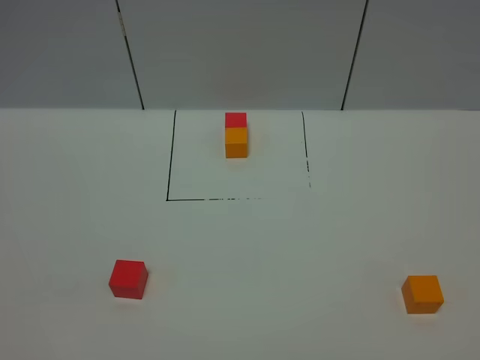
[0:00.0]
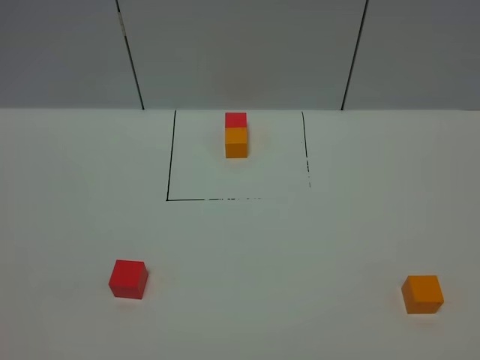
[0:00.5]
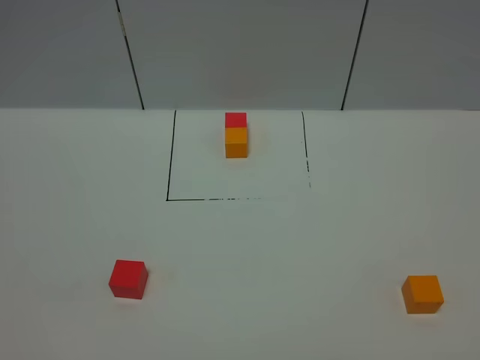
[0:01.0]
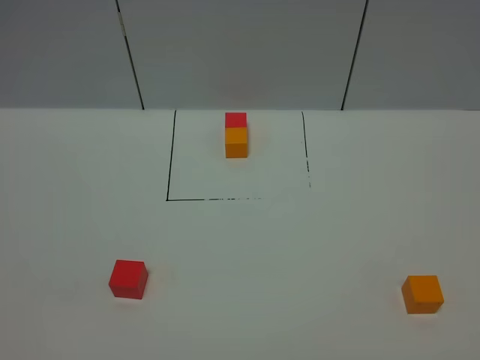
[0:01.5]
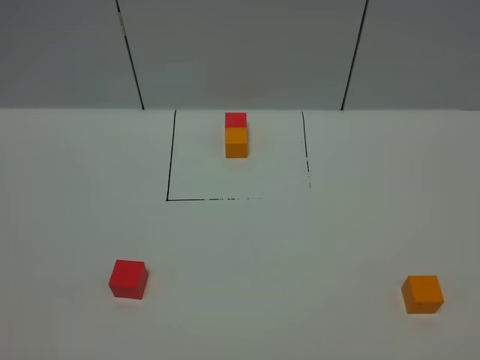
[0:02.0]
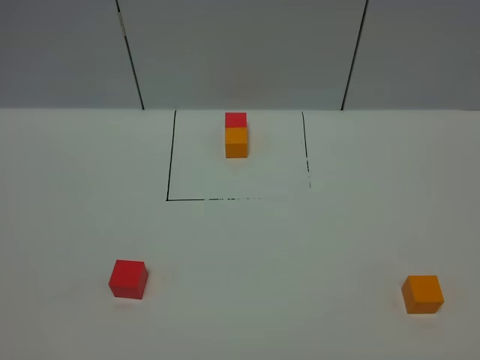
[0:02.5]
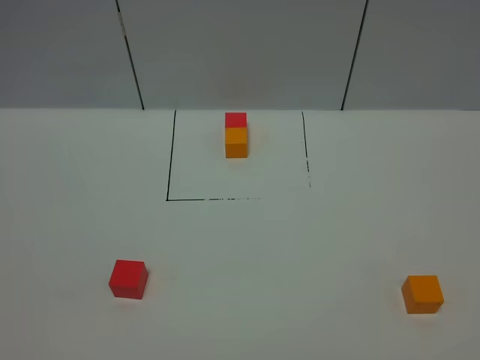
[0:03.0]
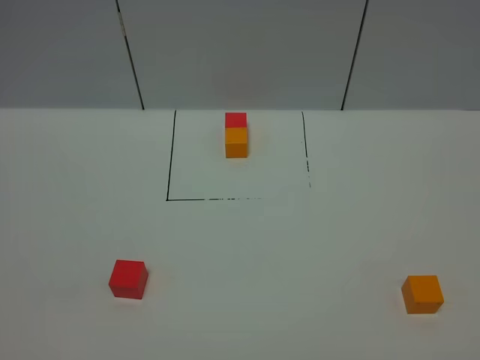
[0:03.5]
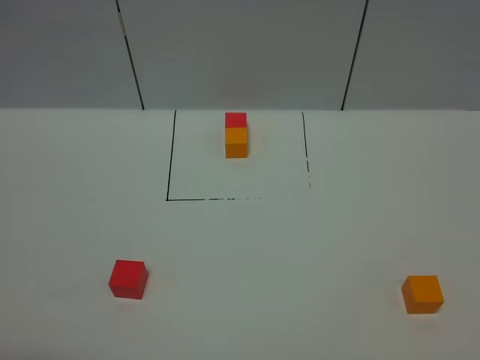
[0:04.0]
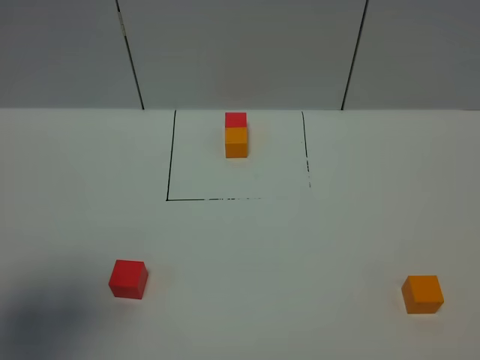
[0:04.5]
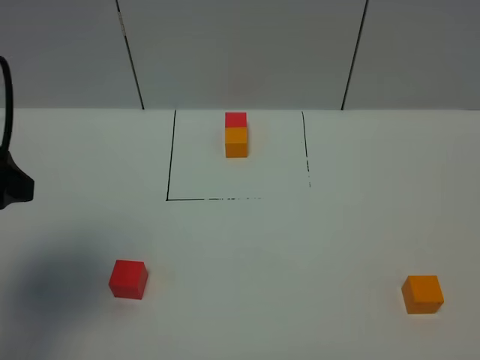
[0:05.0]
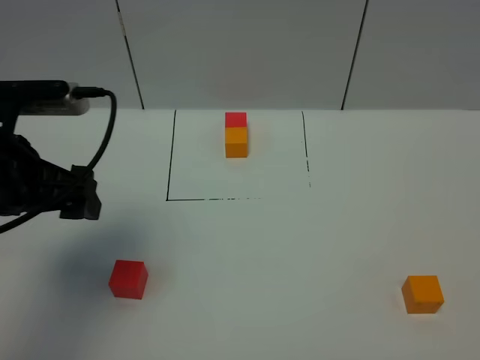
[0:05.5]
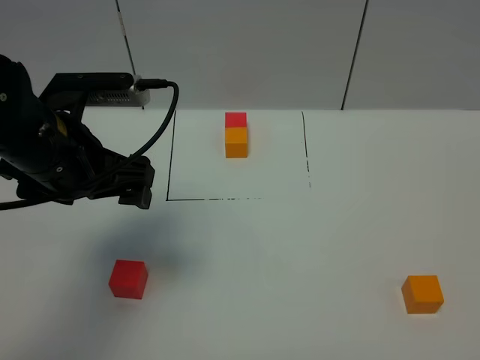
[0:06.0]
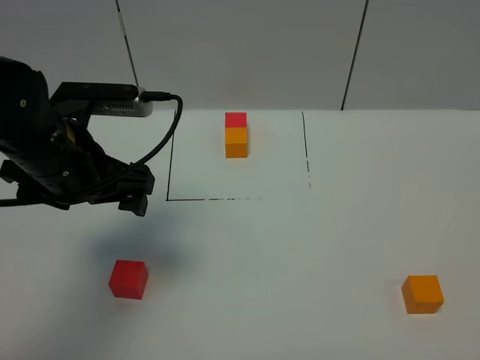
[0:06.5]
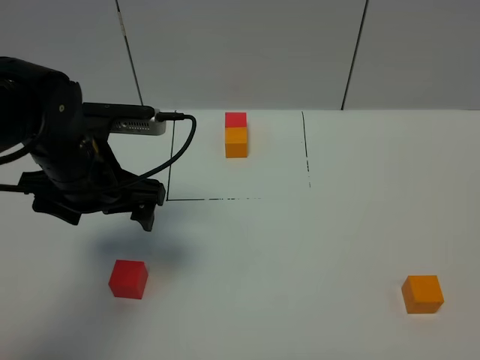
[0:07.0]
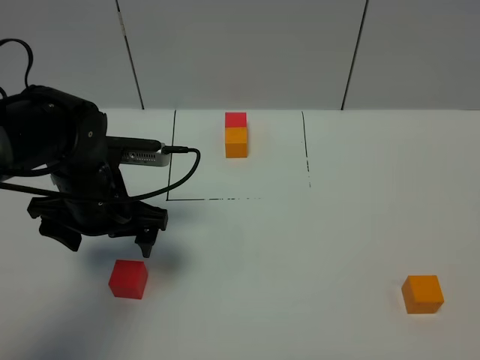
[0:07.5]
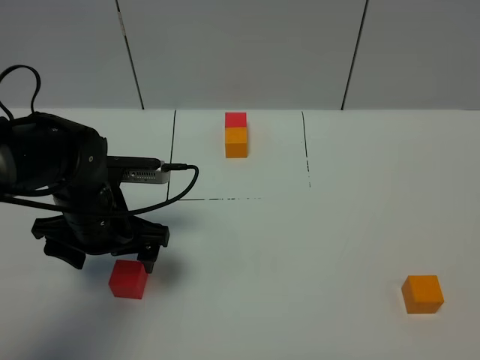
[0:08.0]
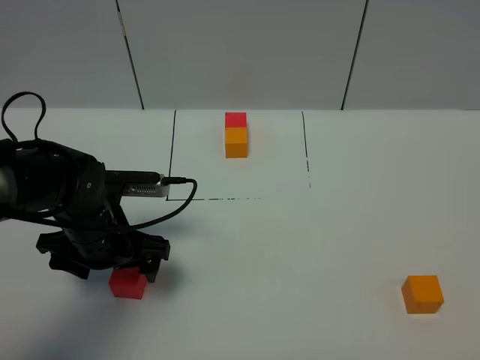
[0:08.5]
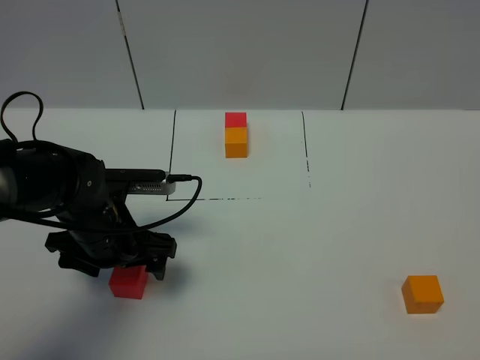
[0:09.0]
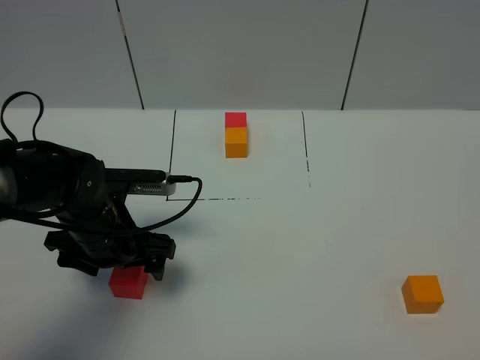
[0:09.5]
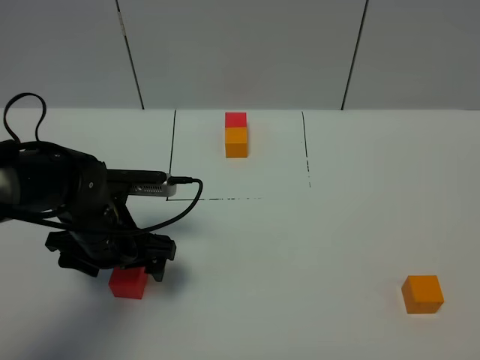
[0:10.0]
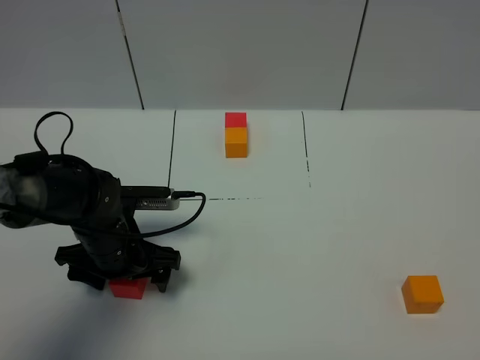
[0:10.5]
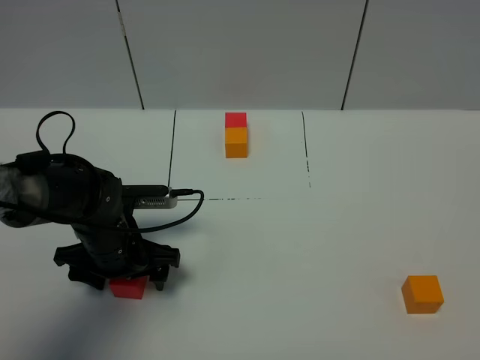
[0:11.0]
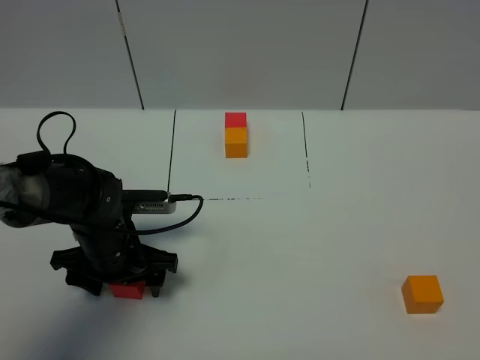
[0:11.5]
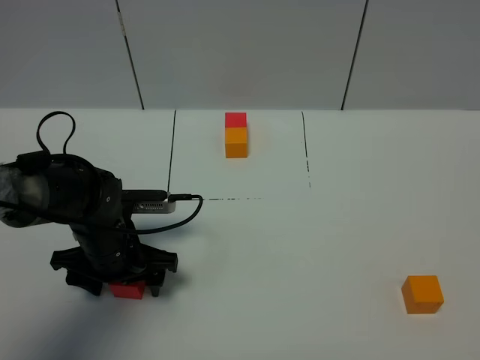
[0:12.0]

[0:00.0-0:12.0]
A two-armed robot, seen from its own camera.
Task of the whole recording: According to the building block template in front, assemble the scattered blocks together.
0:00.0 to 0:02.0: Both grippers stay about where they are.
0:04.0 to 0:06.0: The left gripper heads forward and to the right, covering about 30 cm.
0:06.0 to 0:08.0: The left gripper shifts about 10 cm downward.
0:08.0 to 0:10.0: There are only small adjustments of the grippers.
0:10.0 to 0:12.0: The grippers move only a little.

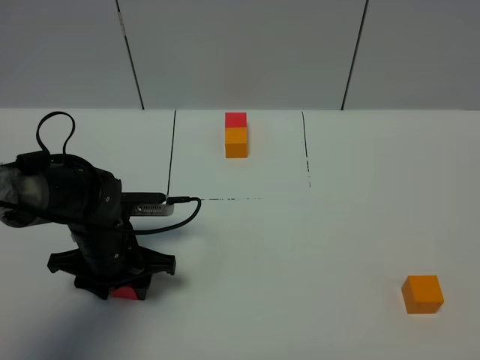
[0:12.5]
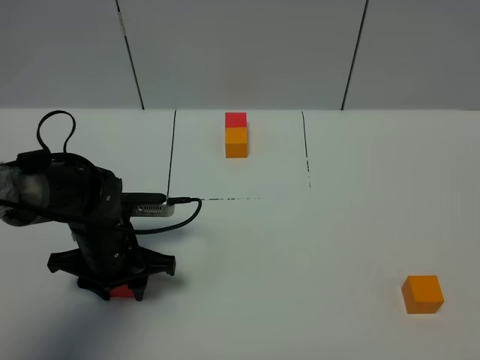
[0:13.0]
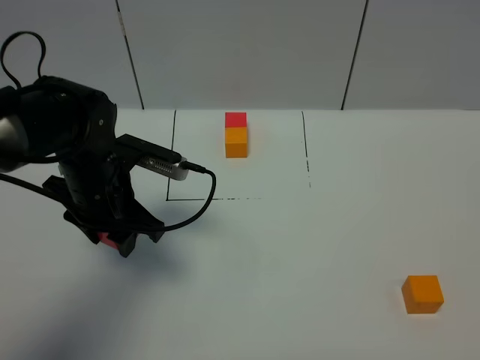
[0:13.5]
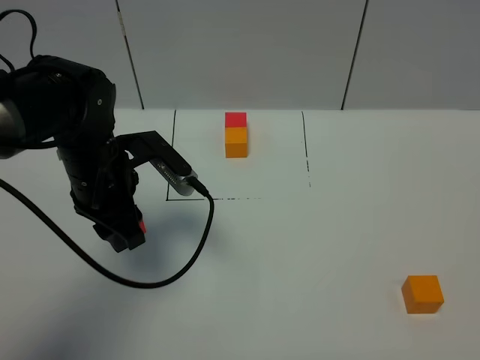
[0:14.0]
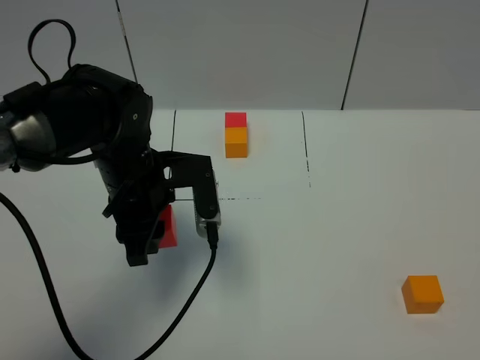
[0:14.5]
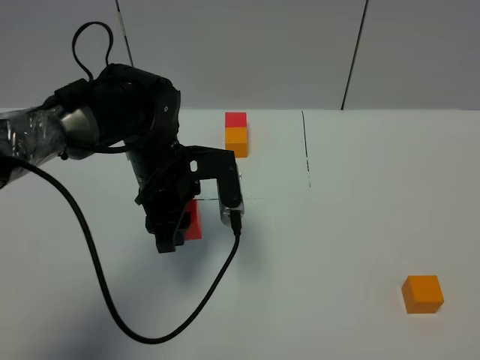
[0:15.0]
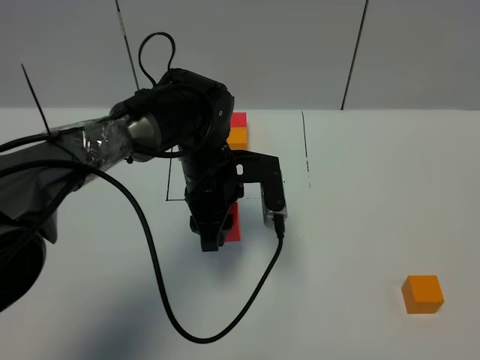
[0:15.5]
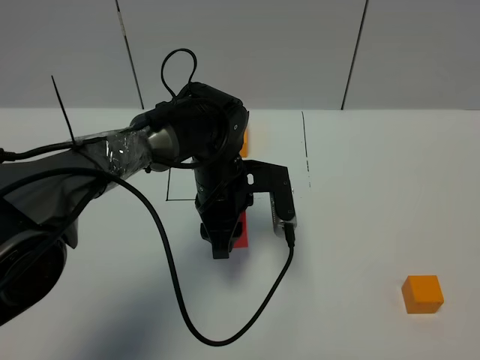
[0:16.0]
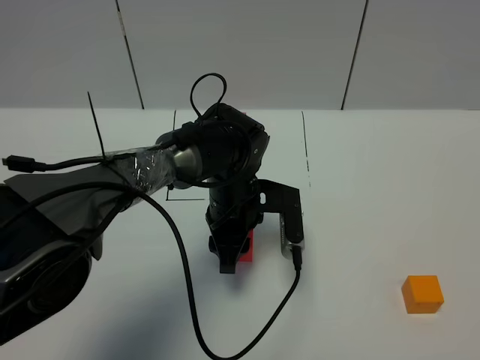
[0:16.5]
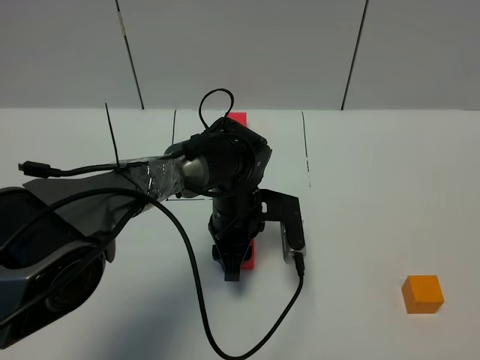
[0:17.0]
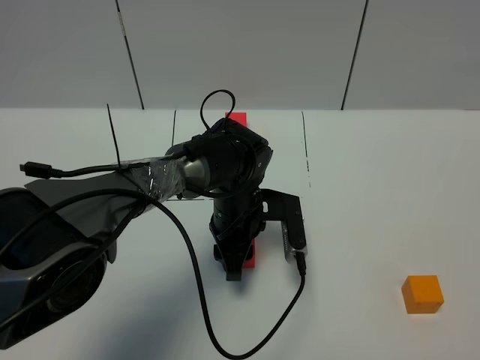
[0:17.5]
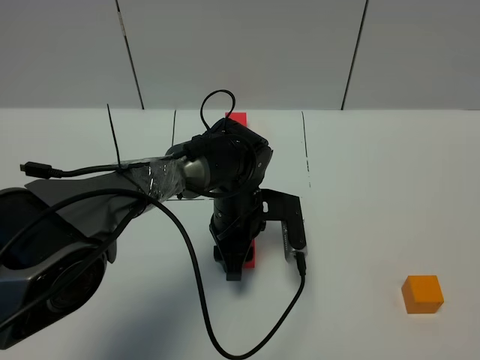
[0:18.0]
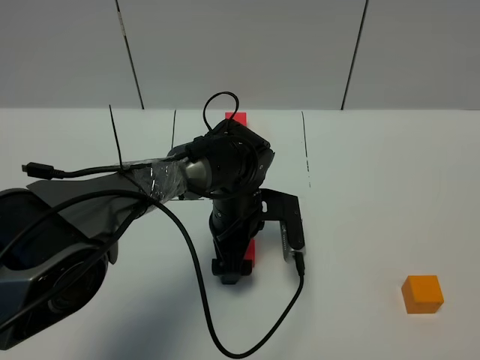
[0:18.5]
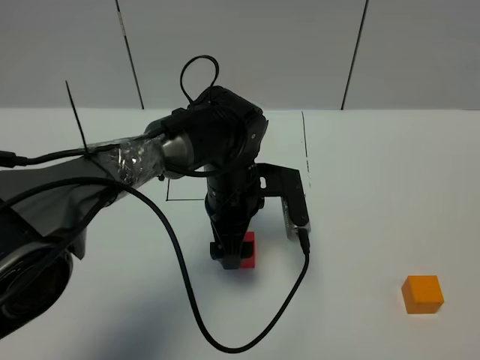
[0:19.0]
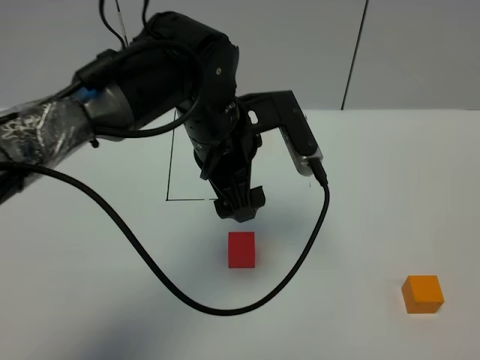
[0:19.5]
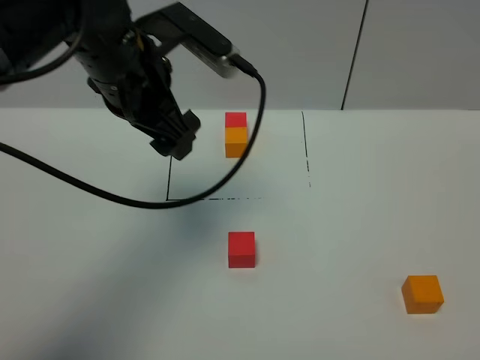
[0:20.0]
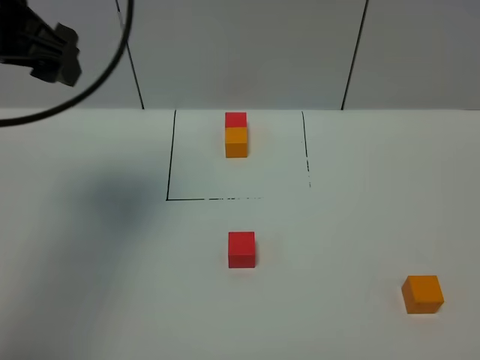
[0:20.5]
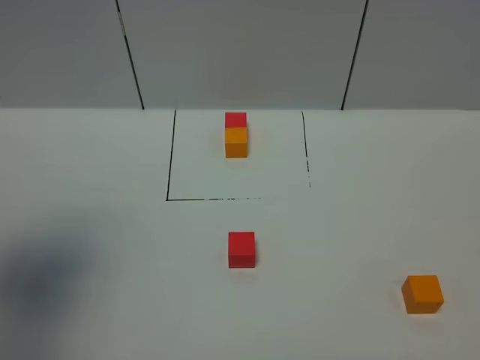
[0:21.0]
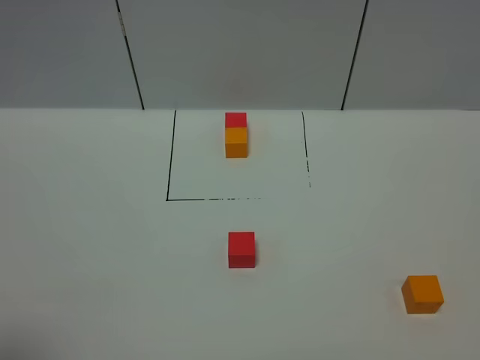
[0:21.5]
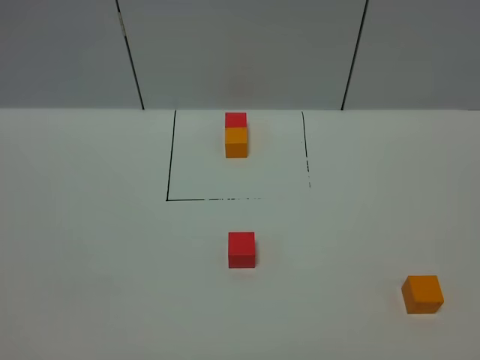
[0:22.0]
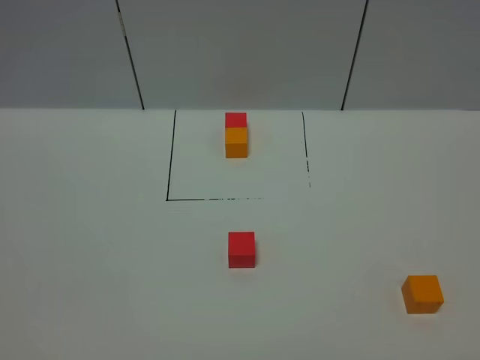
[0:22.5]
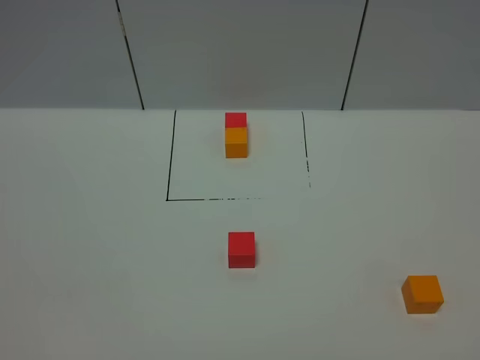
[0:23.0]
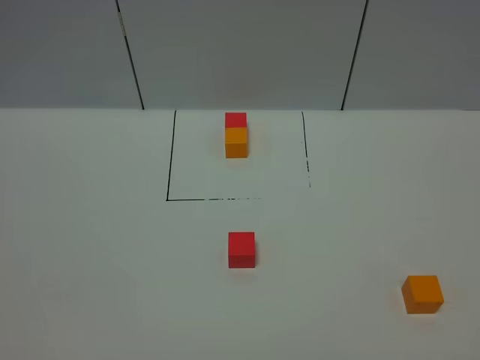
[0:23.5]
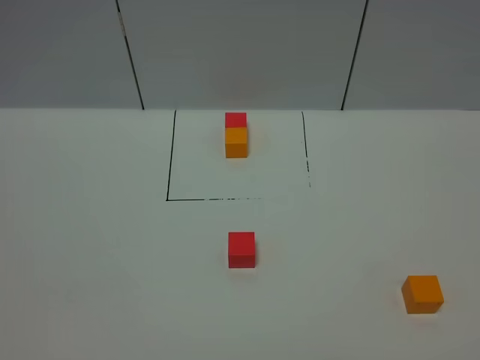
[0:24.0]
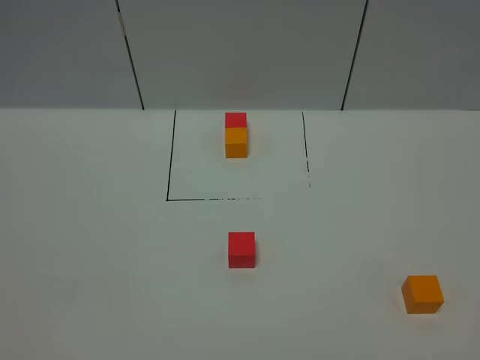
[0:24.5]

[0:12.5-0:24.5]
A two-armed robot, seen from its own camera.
Task of the whole recording: According to the building block template in front, assemble the scattered blocks together.
Step, 0:12.5 to 0:18.5: Put the red cube in the center of the table.
0:12.5 to 0:14.5: The left gripper goes some 10 cm upward and to the right.
0:14.5 to 0:16.5: The left gripper moves to the right and downward, some 15 cm.
0:16.5 to 0:18.5: The left gripper opens.
0:18.5 to 0:20.5: The left gripper moves upward and to the left, roughly 40 cm.
0:20.5 to 0:22.5: The left gripper travels backward by some 35 cm.

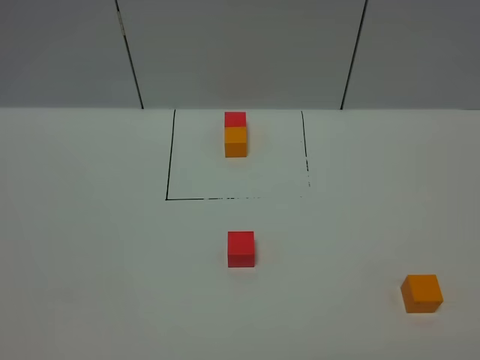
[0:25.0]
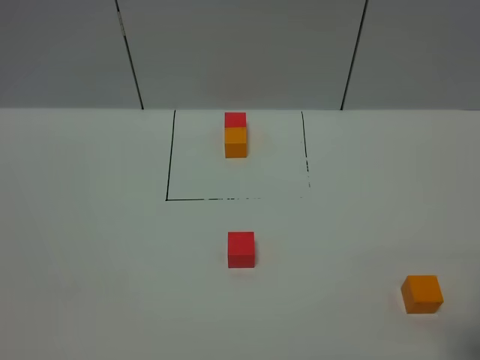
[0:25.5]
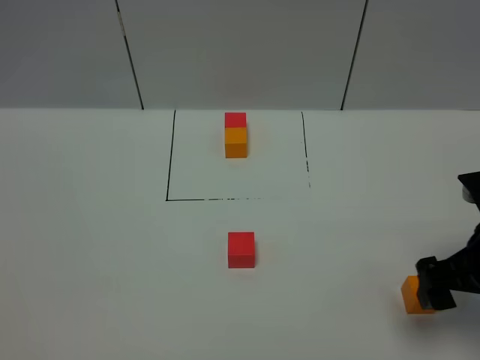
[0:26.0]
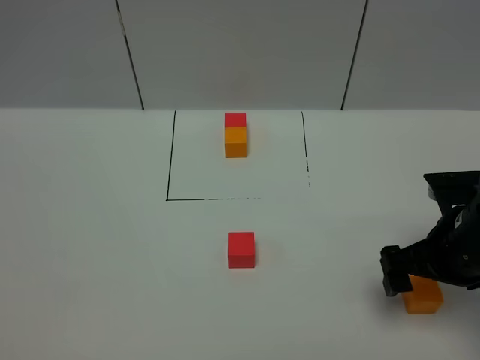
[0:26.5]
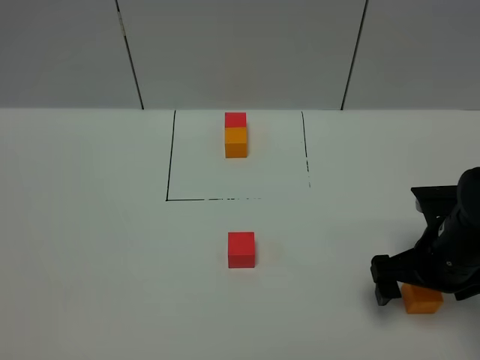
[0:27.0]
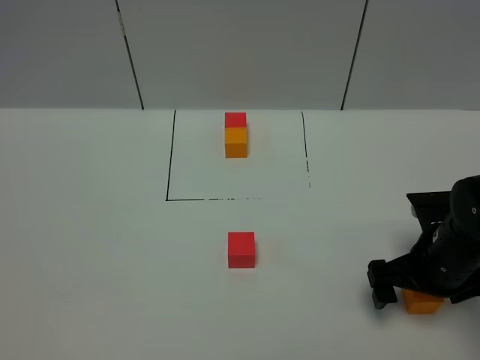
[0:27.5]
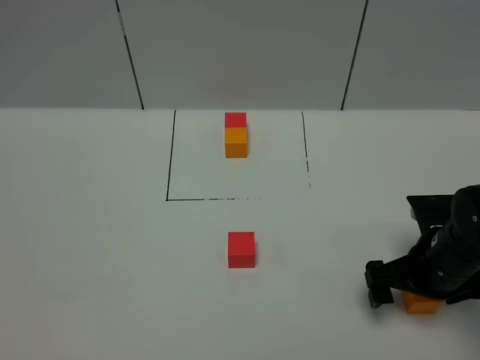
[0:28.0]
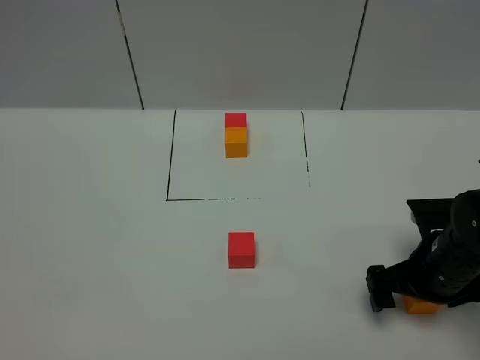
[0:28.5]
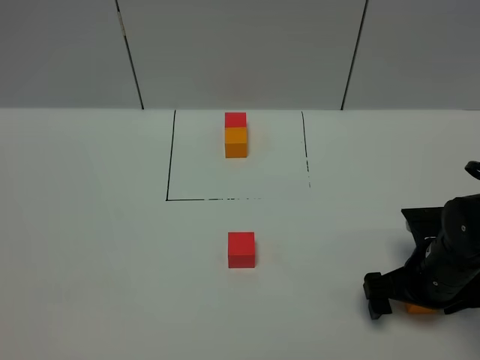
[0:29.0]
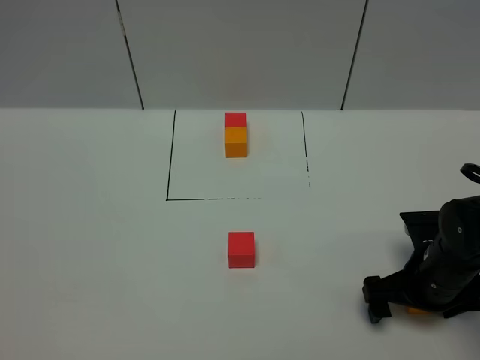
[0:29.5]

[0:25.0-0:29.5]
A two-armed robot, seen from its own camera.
Task of the whole recording: According to the building block template in front, assemble the scattered blocks together.
0:25.0 to 0:27.0: The right gripper goes approximately 25 cm forward and downward.
0:27.0 to 0:29.5: The right gripper travels downward by roughly 5 cm.
